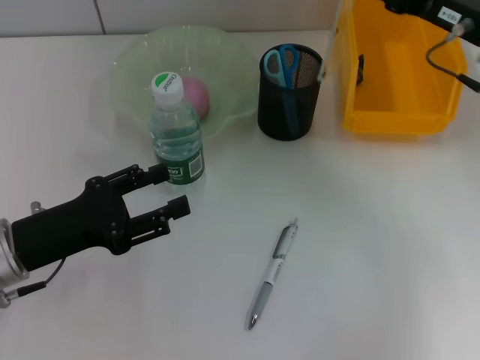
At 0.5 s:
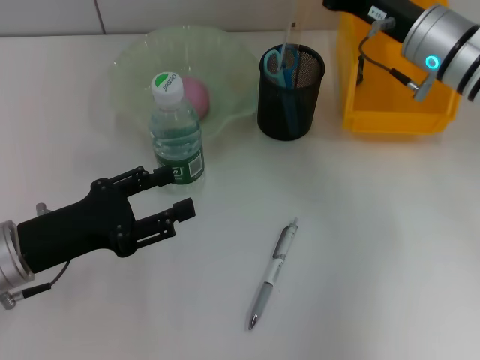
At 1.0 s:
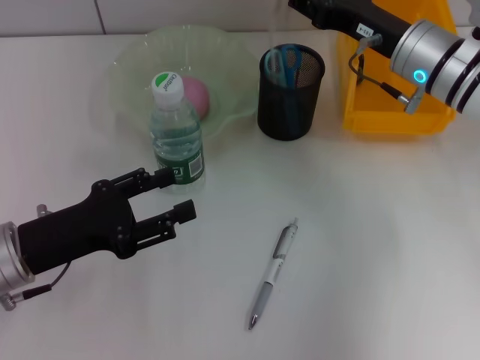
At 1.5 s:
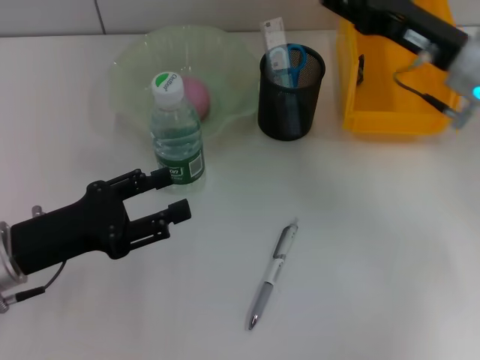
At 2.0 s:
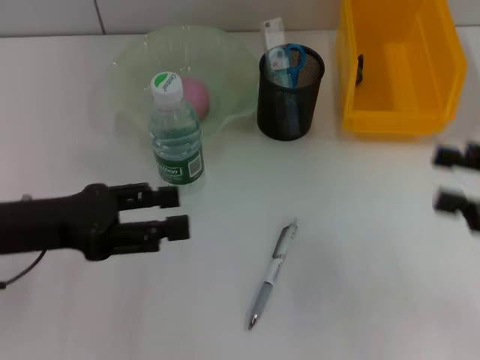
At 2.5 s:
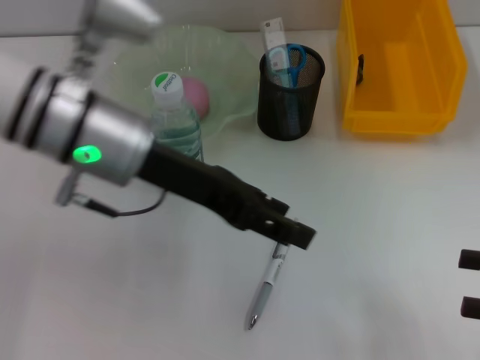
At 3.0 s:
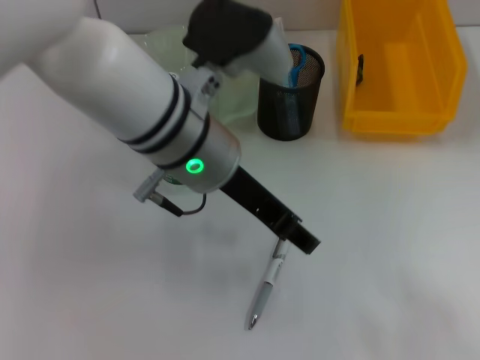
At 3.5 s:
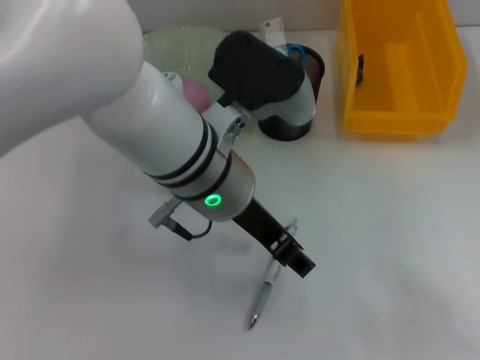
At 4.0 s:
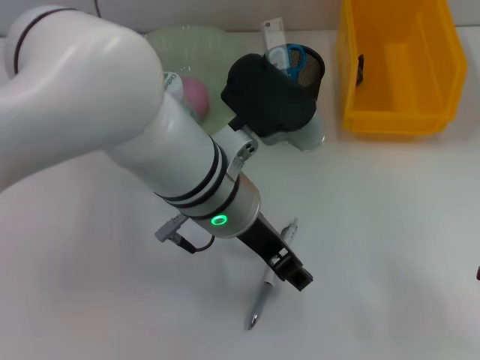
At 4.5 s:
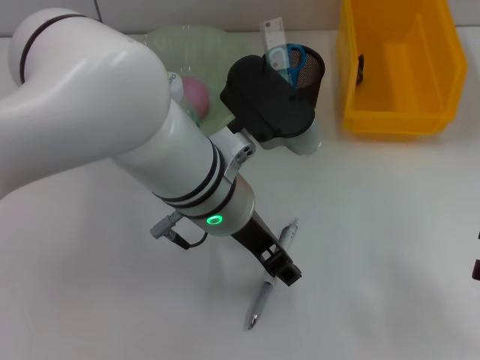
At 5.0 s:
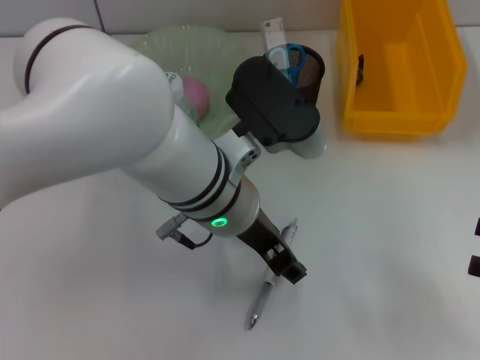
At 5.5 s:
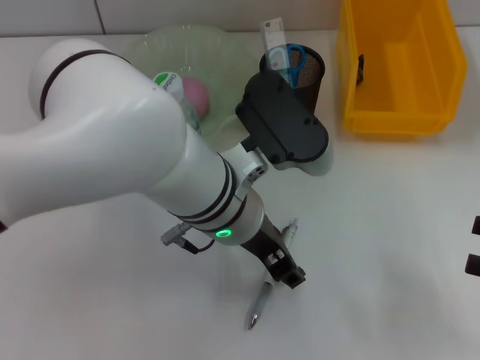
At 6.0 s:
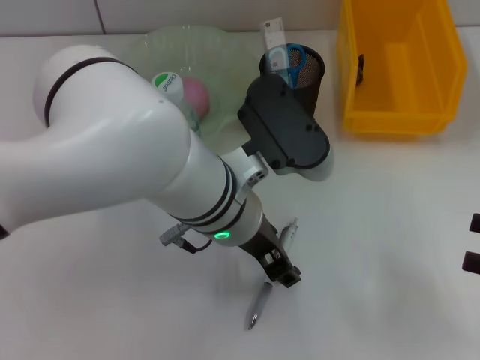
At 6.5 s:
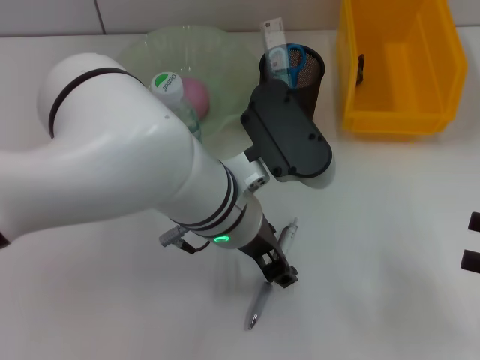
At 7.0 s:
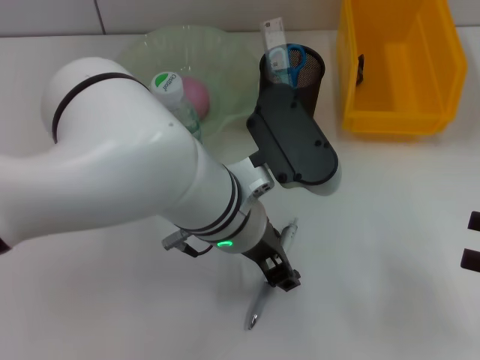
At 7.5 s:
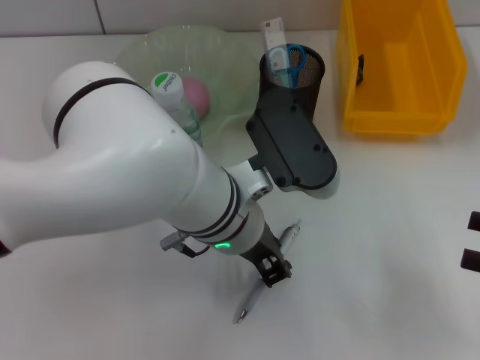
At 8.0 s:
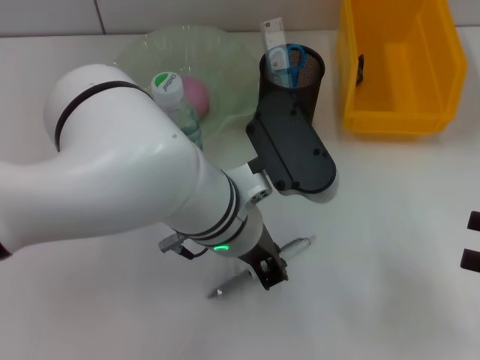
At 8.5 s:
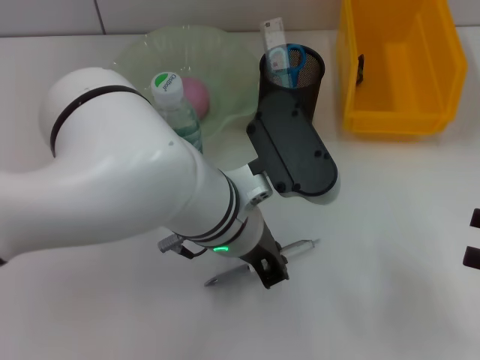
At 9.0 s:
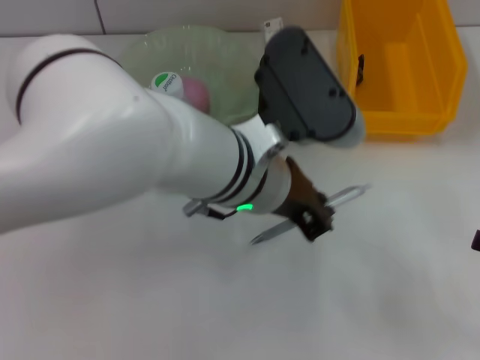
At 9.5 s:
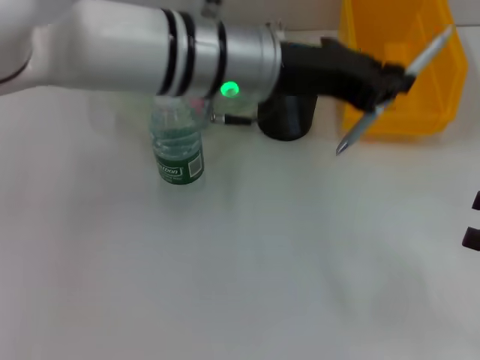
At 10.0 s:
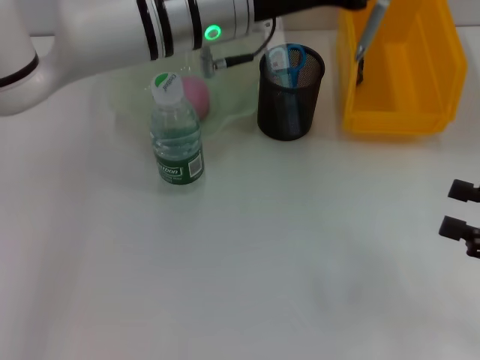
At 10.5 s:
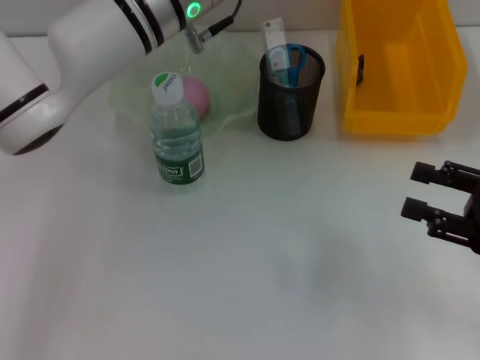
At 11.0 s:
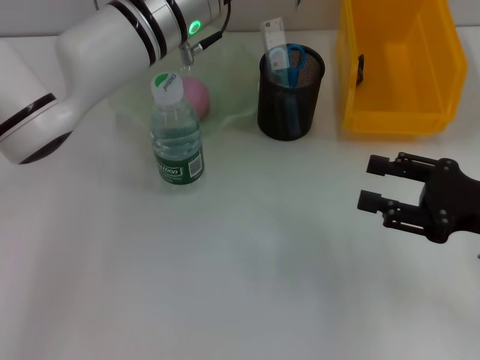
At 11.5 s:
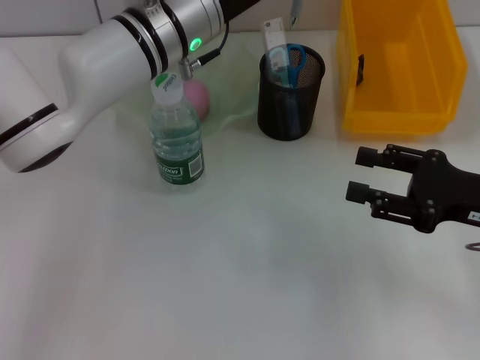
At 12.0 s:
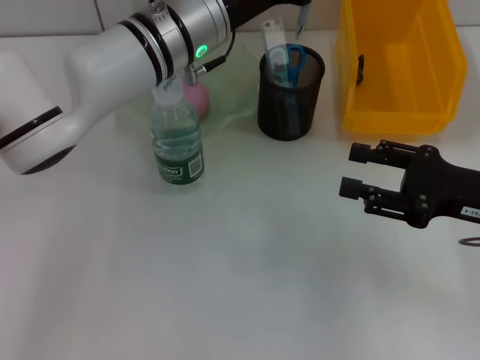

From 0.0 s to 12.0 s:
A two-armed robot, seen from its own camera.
Step, from 1.5 s to 8.0 s: Grab the gray spring-action pen with the left hand.
From 0.0 s to 2.0 s: The left gripper shifts some 5 cm upward; the right gripper travels backward and to the right by approximately 15 cm.
From 2.0 s to 4.0 s: The left gripper goes some 25 cm to the right. Meanwhile the right gripper goes some 5 cm backward.
From 6.0 s to 8.0 s: The left gripper closes up.
From 8.0 s to 10.0 s: The left gripper is displaced forward and upward by approximately 15 cm.
From 10.0 s to 12.0 s: The right gripper moves to the left and forward, roughly 10 cm.

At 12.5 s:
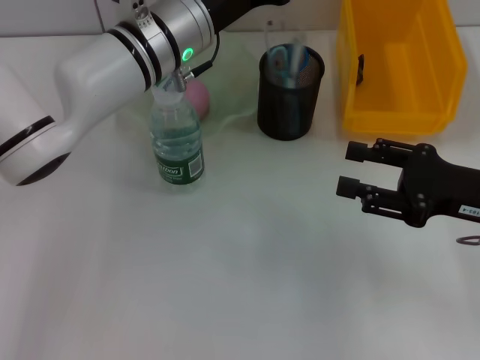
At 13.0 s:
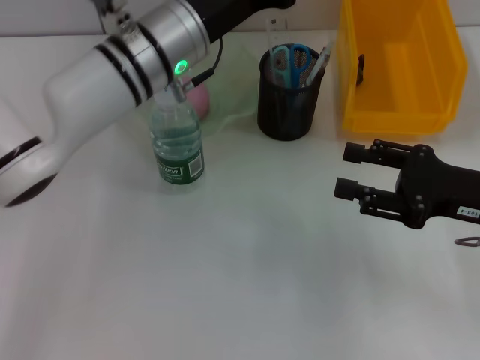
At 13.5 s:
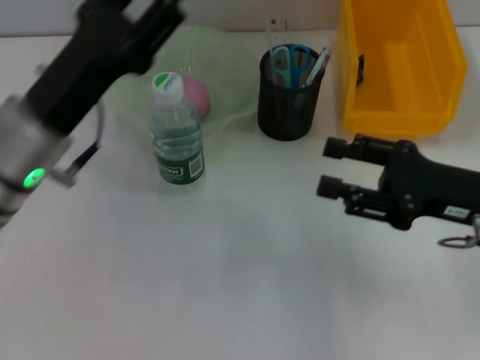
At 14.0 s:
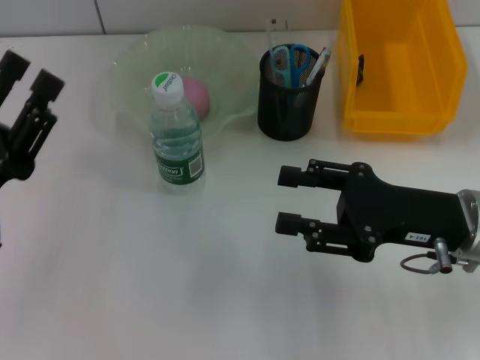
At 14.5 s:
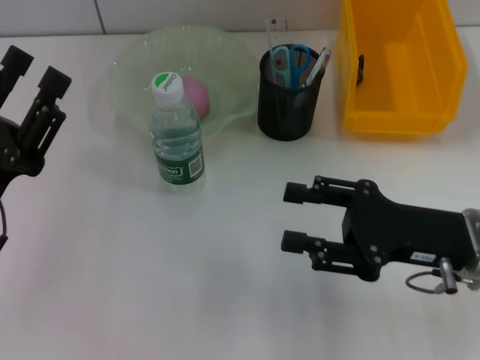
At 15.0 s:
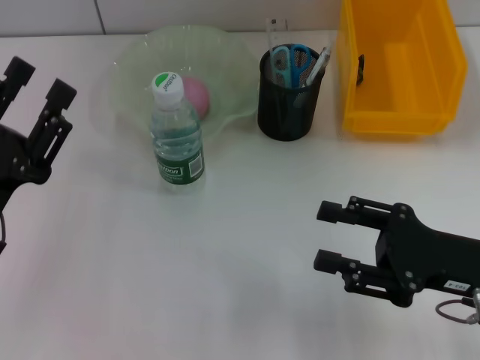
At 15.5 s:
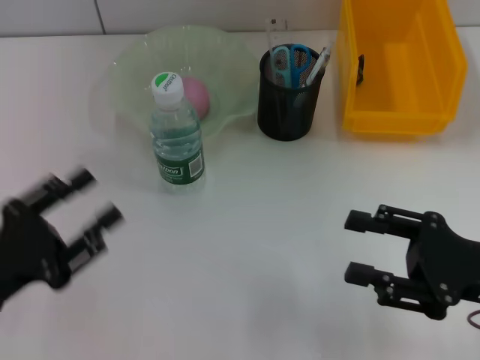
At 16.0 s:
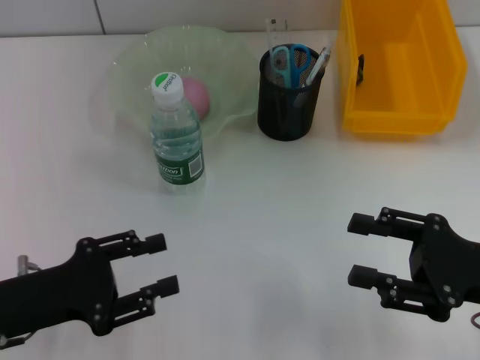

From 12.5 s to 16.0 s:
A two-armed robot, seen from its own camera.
From 12.5 s to 14.5 s: The right gripper is displaced to the left by about 5 cm, while the left gripper heads backward and to the left, covering some 25 cm, and opens up.
From 14.5 s to 16.0 s: The right gripper is displaced to the right by some 5 cm.
